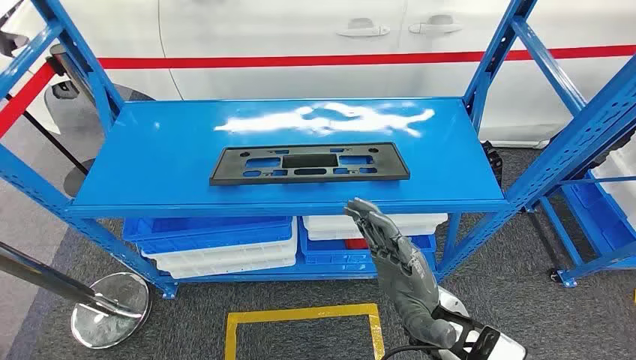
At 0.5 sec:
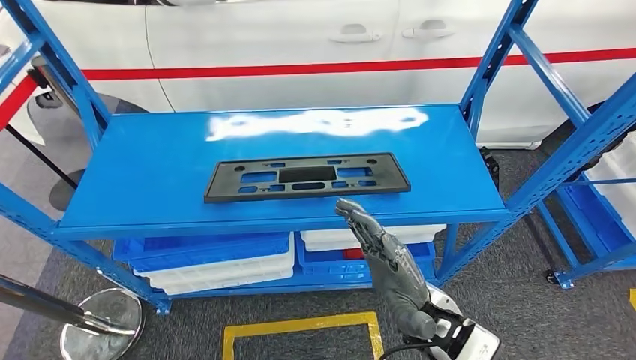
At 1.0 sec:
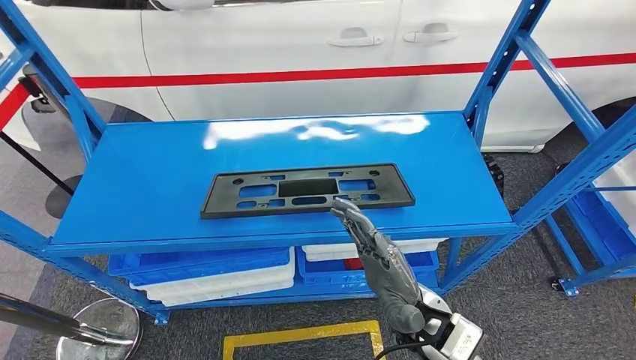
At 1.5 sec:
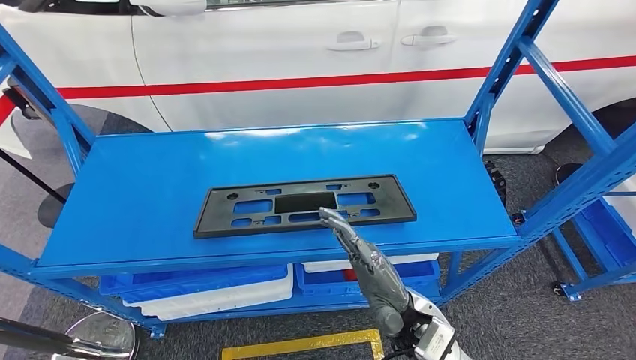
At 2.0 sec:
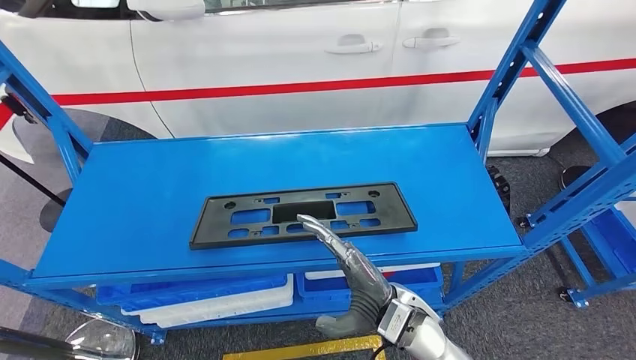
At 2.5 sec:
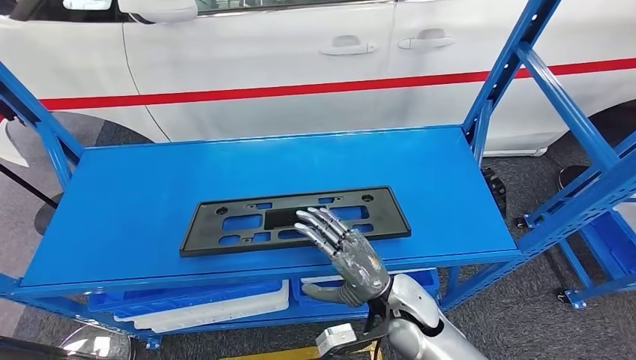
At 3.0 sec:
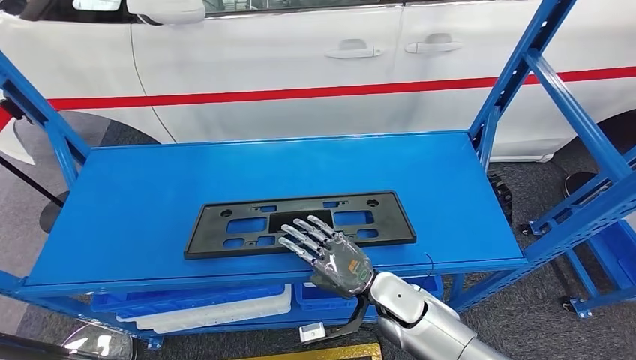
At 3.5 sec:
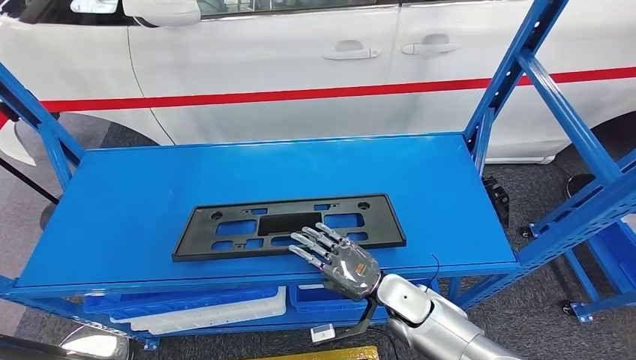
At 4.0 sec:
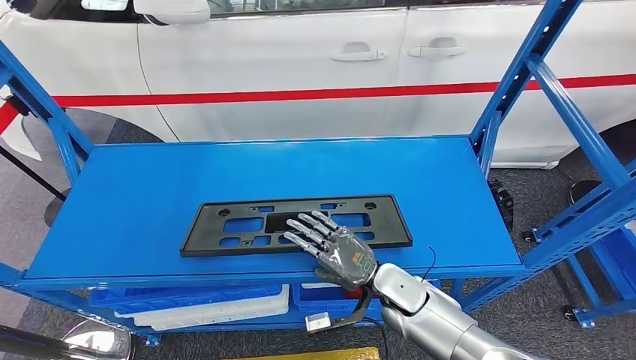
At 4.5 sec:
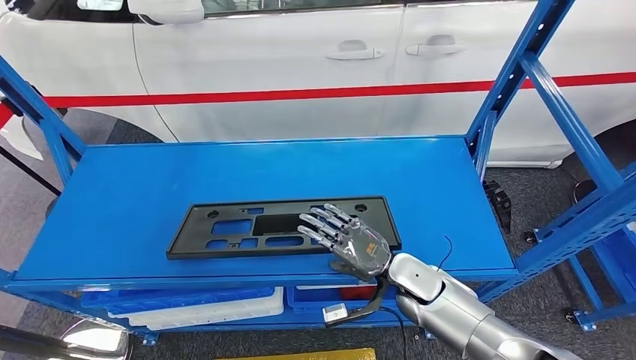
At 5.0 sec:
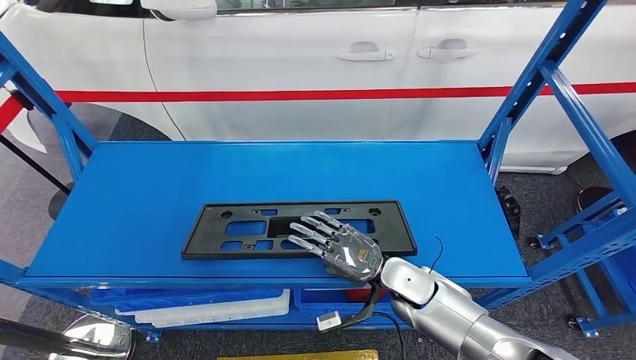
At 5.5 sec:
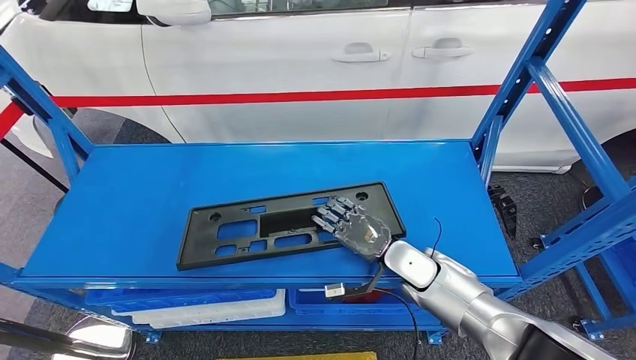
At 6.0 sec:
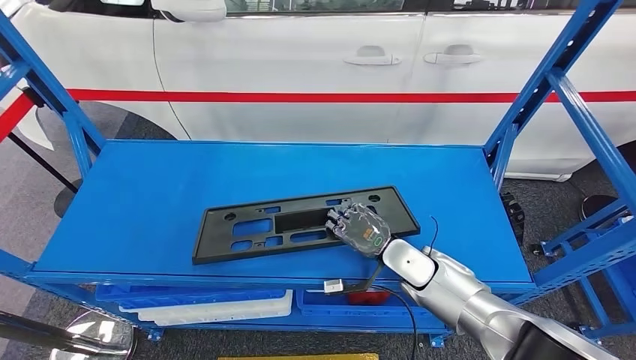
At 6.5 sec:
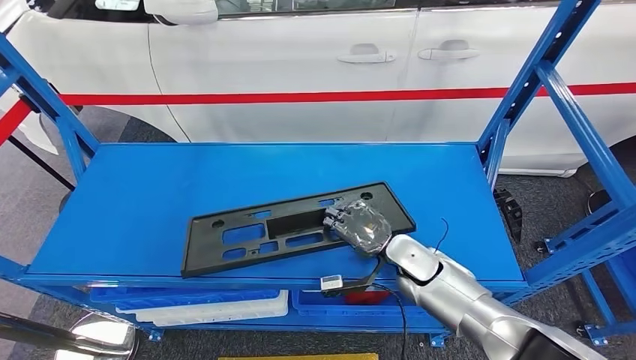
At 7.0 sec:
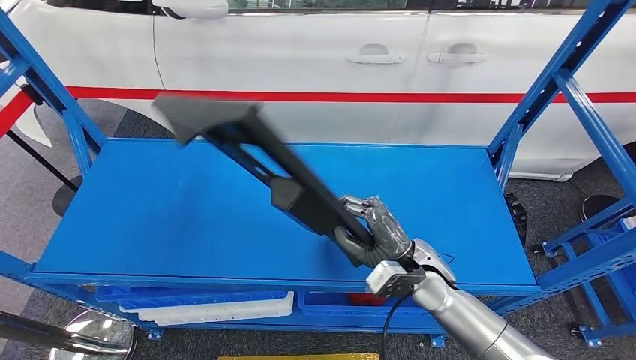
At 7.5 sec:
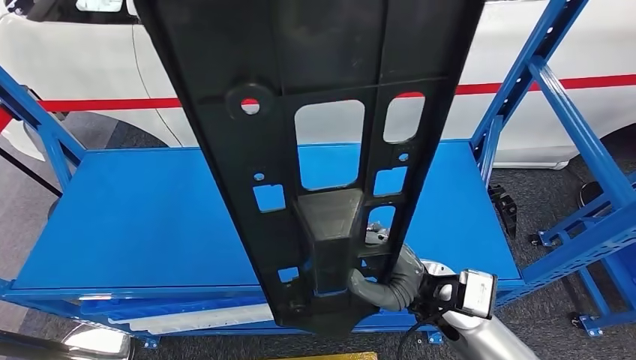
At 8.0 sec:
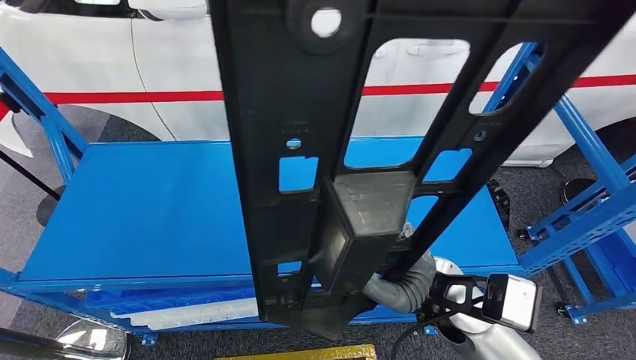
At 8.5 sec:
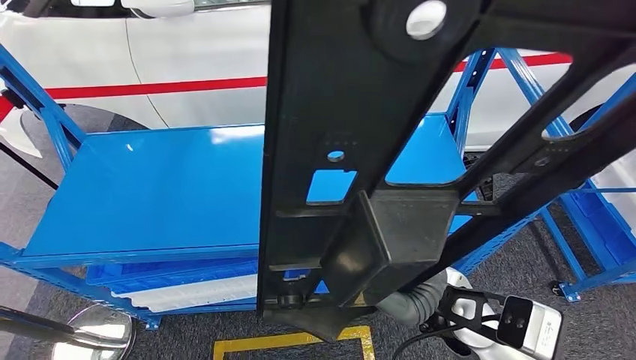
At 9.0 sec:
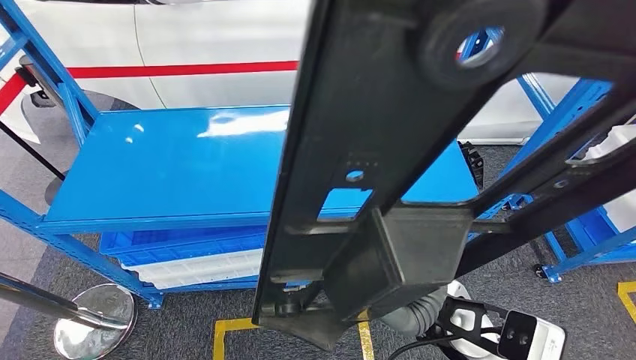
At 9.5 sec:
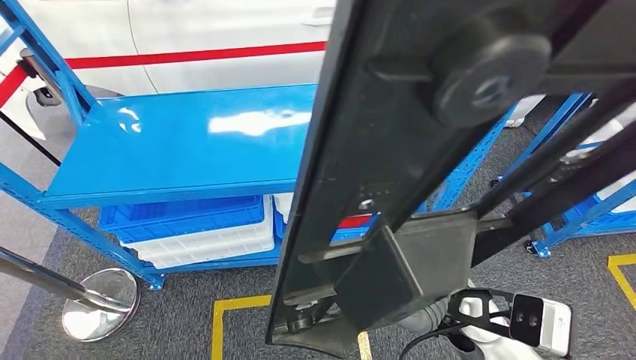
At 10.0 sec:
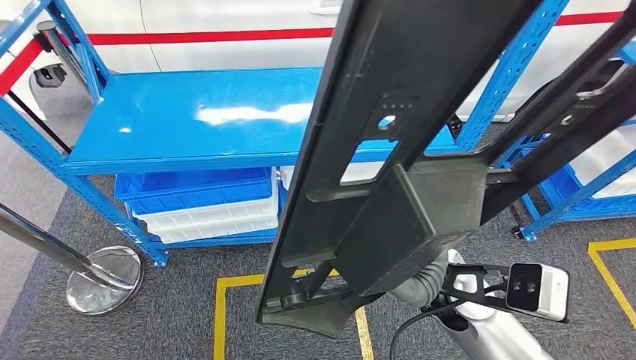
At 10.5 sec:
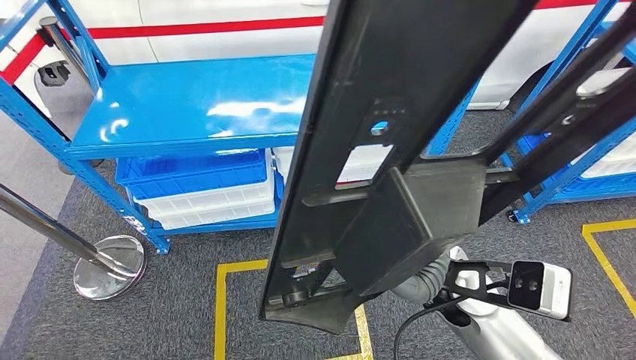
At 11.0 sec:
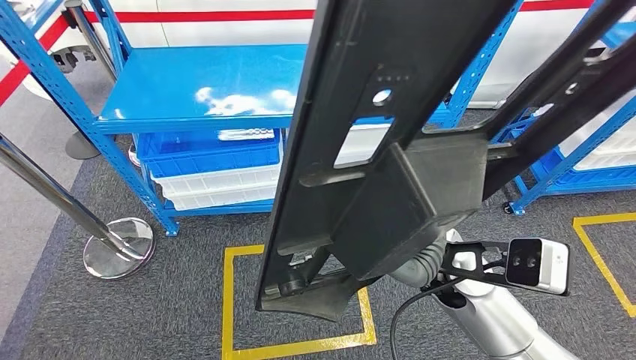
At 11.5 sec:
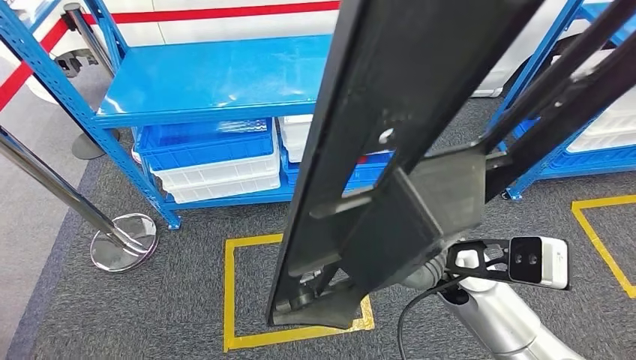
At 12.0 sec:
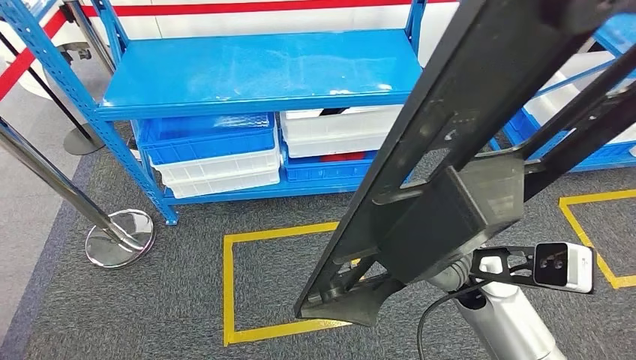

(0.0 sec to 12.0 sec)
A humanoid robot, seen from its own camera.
Step, 0.0 sec - 6.5 sec: Pick up the large material from the shelf.

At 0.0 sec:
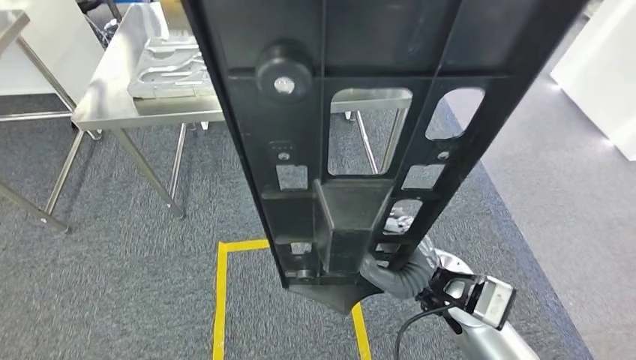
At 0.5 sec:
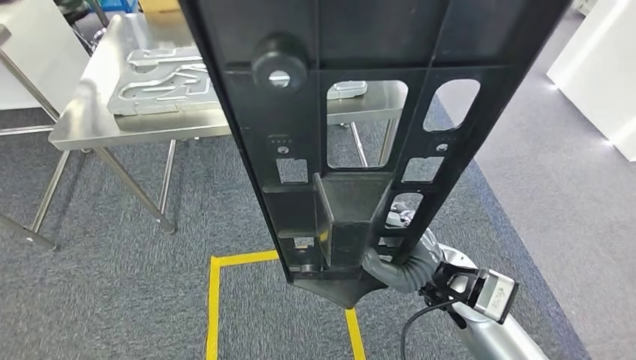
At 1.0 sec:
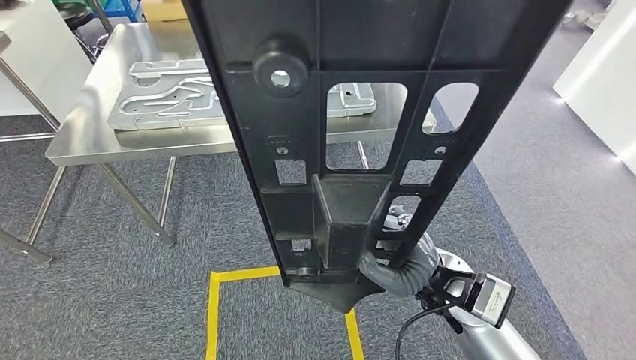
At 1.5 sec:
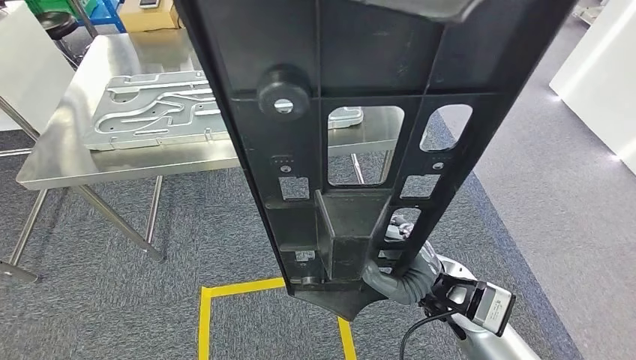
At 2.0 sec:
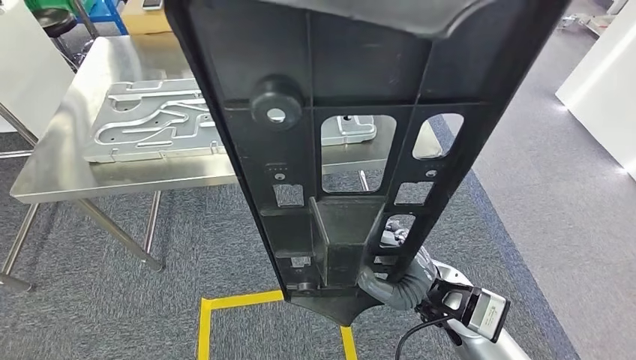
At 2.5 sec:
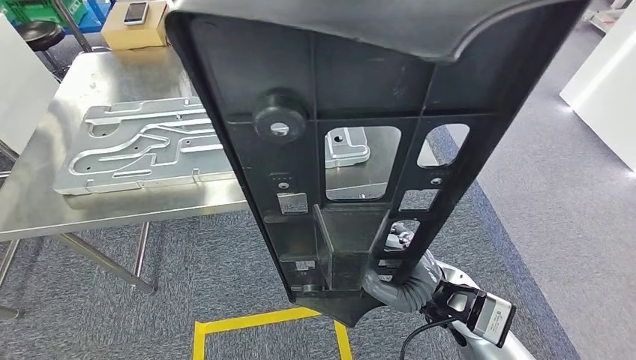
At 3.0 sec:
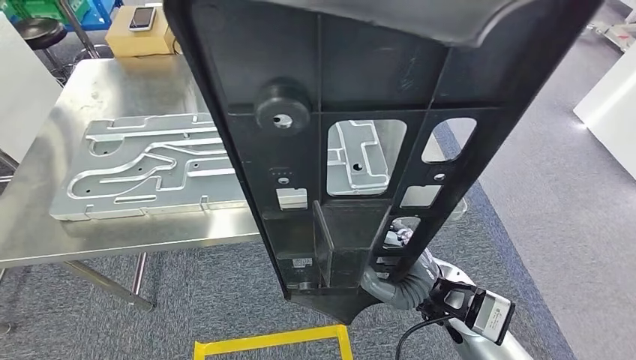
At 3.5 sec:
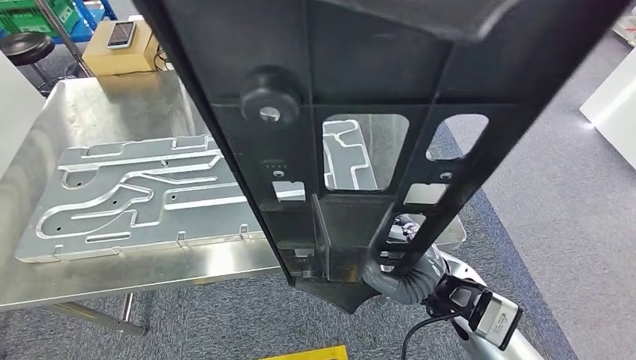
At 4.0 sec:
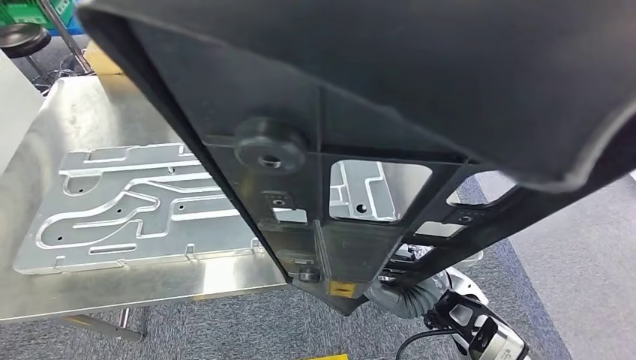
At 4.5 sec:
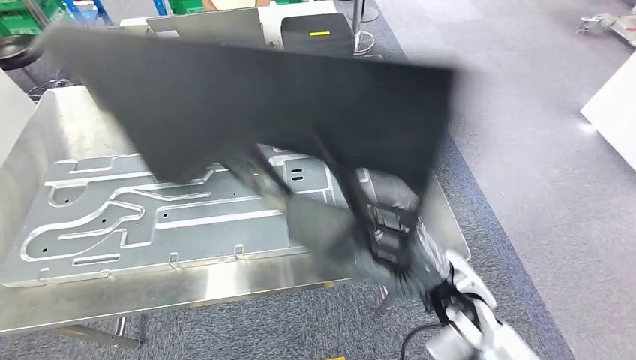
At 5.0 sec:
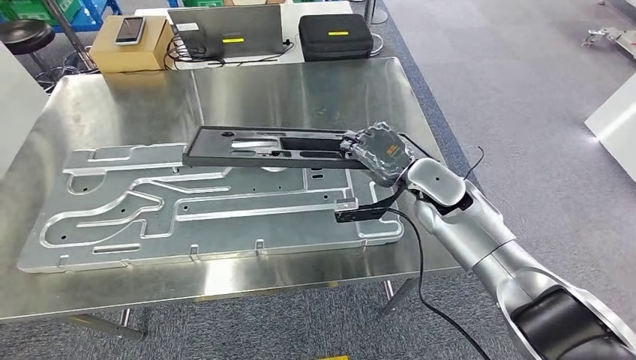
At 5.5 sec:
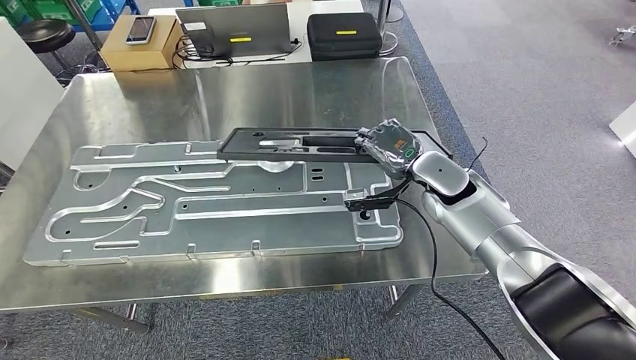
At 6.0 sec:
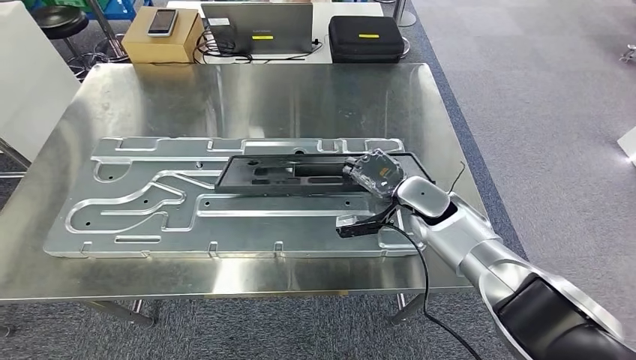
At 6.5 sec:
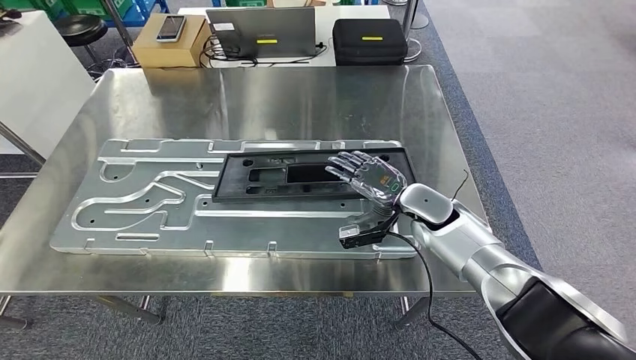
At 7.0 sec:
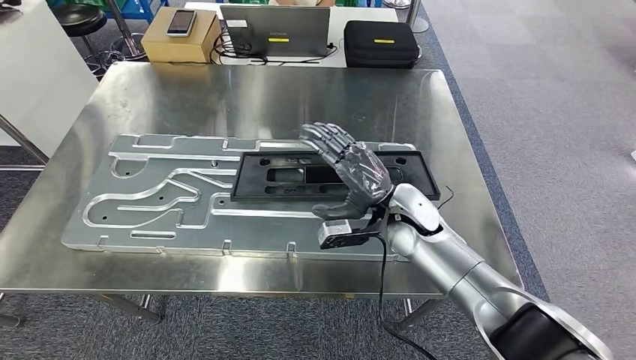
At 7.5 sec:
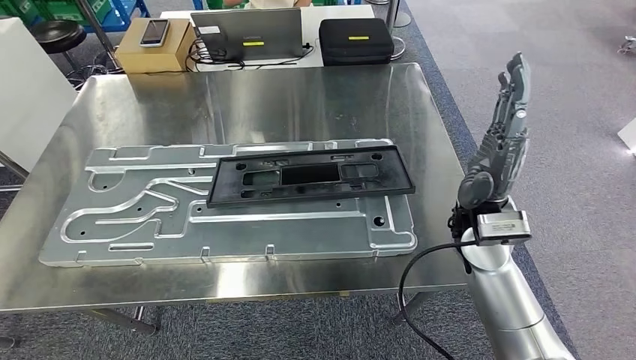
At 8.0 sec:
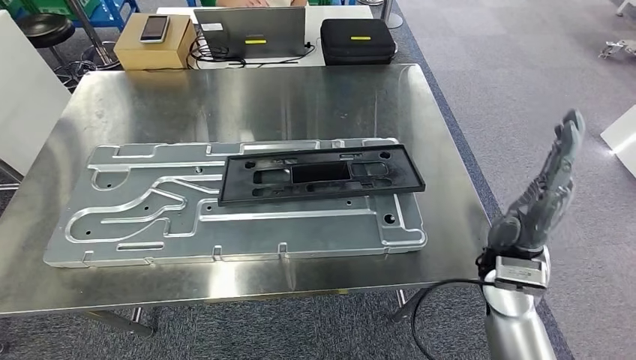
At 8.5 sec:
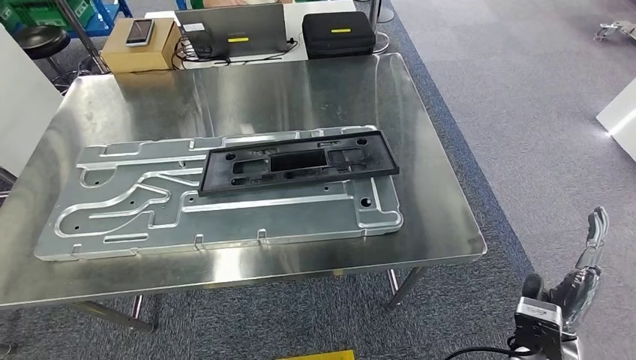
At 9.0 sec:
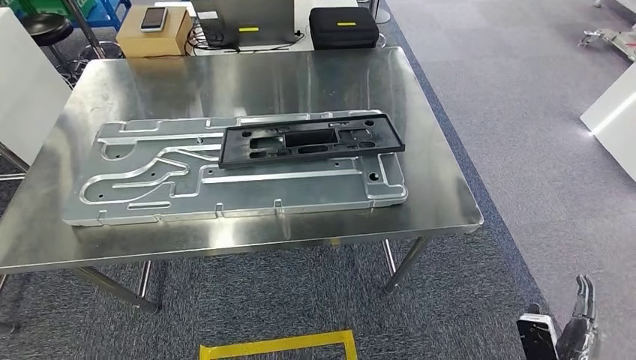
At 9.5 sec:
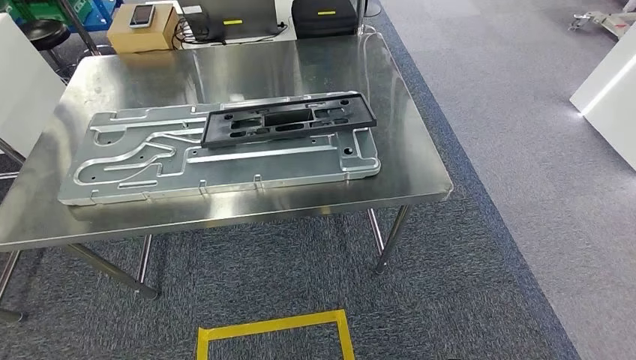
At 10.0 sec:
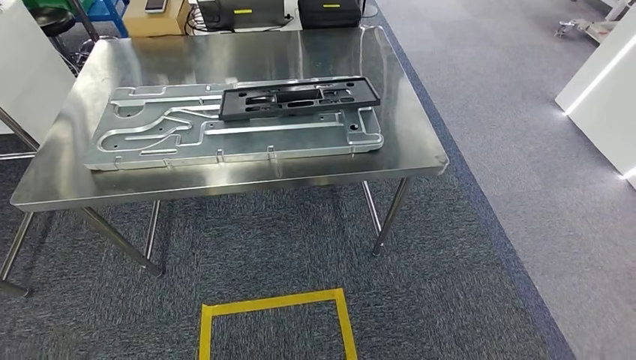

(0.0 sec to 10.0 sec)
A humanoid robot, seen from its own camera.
Step, 5.0 sec - 8.5 sec: Insert the large material into the corresponding slot on the workbench.
